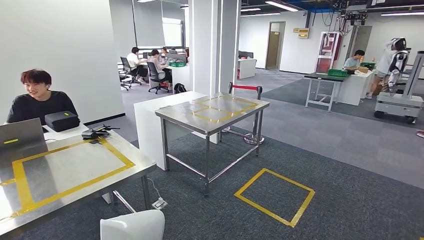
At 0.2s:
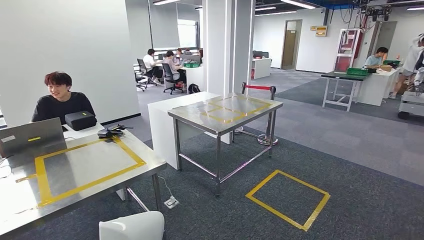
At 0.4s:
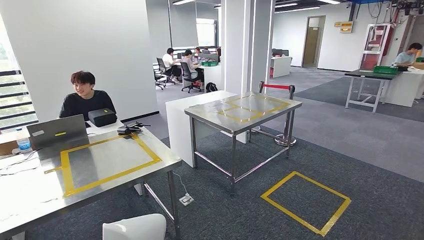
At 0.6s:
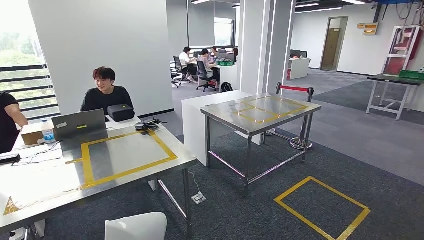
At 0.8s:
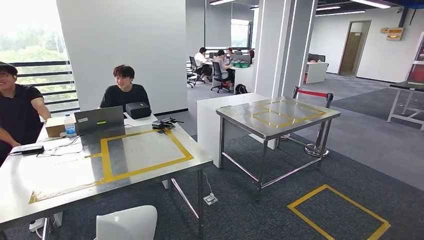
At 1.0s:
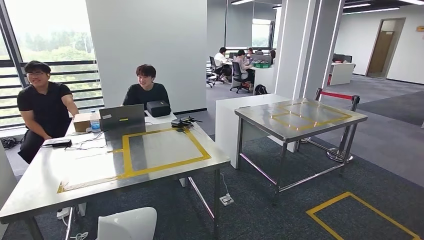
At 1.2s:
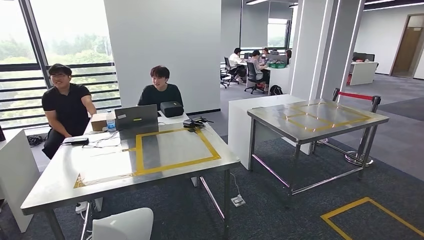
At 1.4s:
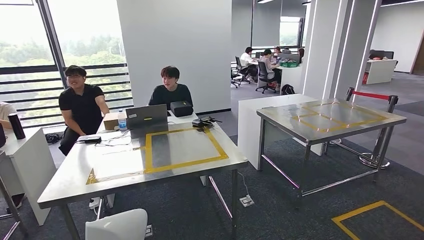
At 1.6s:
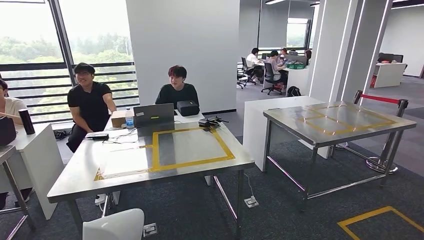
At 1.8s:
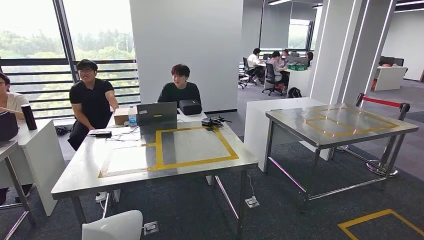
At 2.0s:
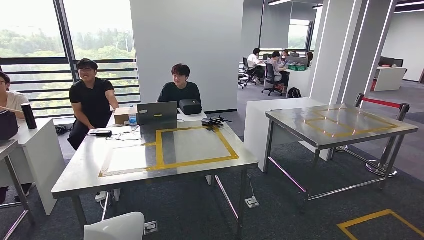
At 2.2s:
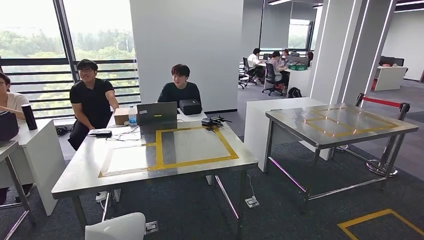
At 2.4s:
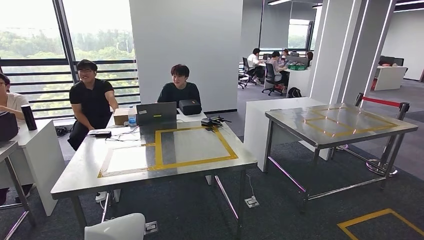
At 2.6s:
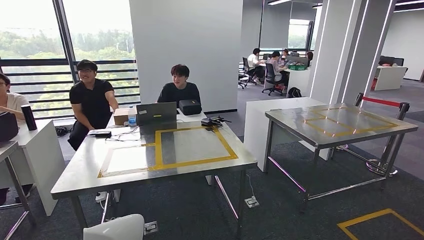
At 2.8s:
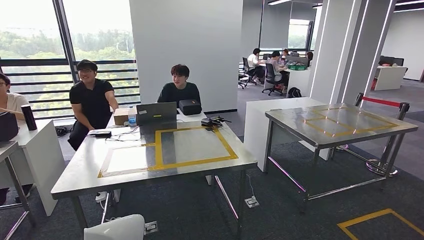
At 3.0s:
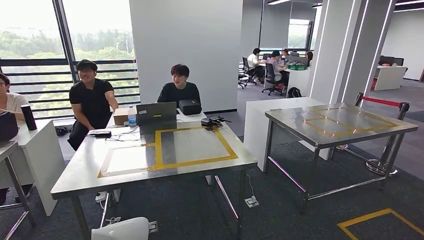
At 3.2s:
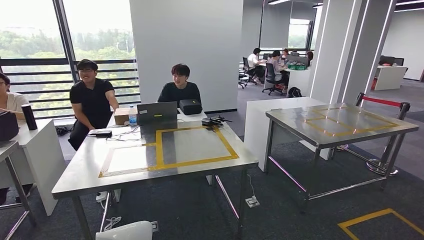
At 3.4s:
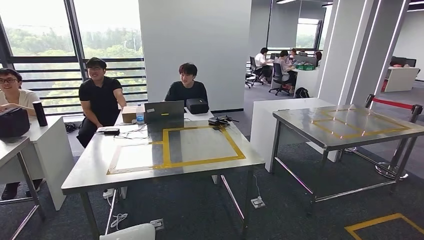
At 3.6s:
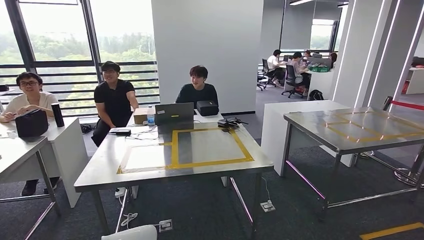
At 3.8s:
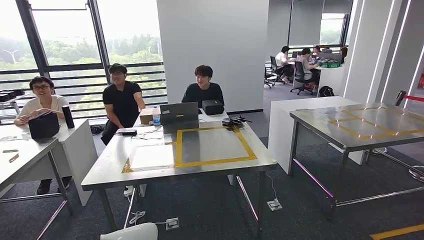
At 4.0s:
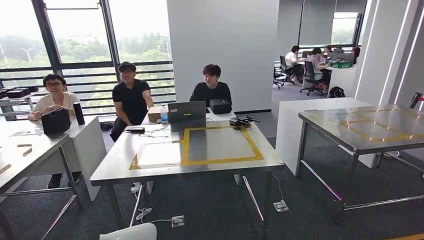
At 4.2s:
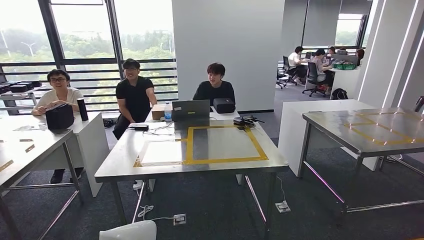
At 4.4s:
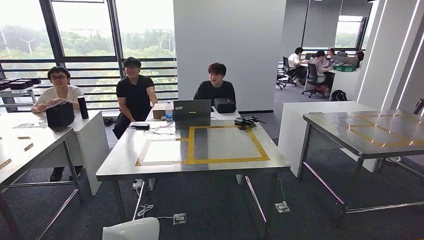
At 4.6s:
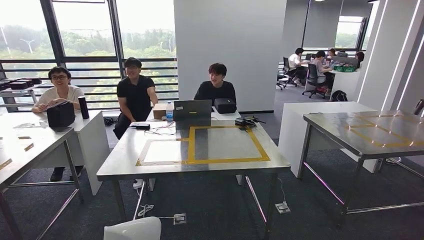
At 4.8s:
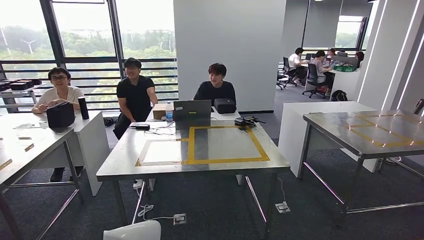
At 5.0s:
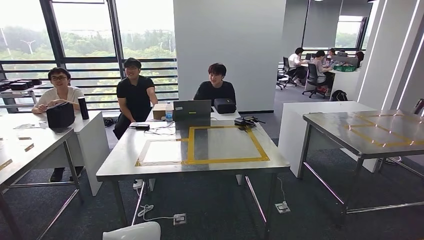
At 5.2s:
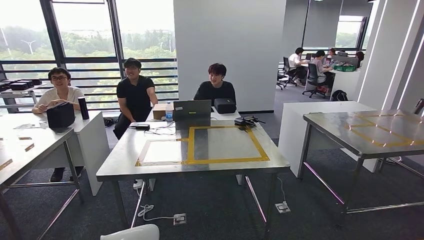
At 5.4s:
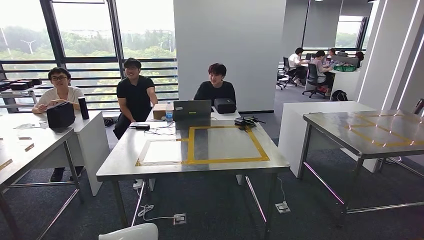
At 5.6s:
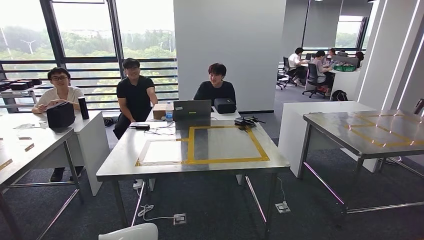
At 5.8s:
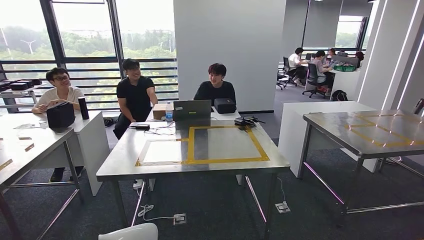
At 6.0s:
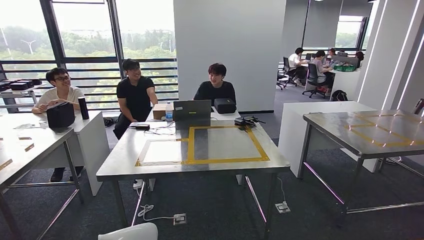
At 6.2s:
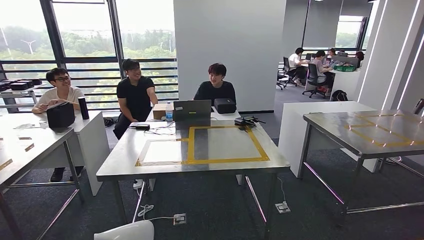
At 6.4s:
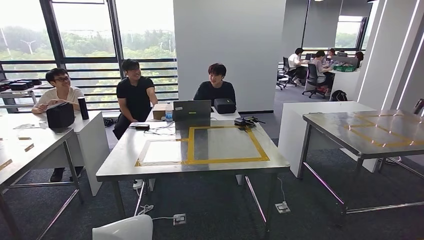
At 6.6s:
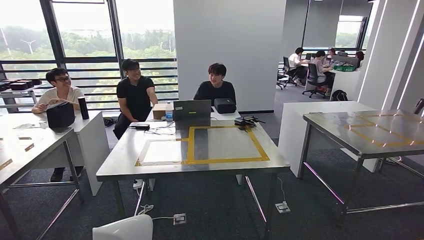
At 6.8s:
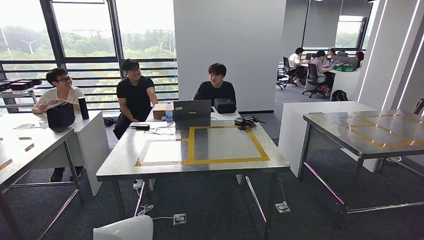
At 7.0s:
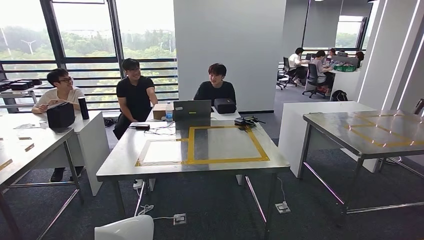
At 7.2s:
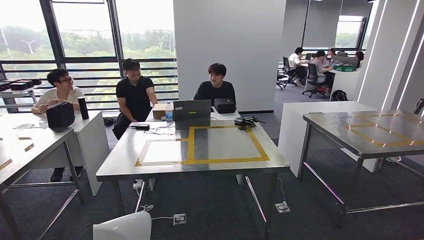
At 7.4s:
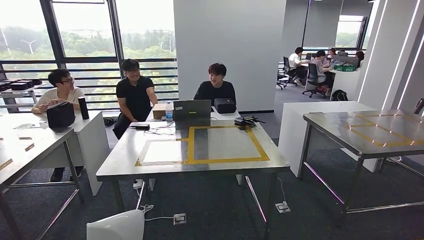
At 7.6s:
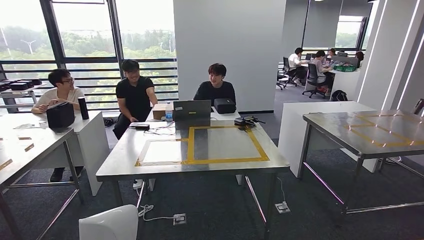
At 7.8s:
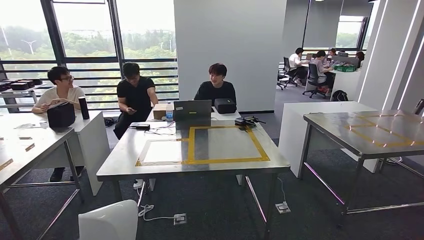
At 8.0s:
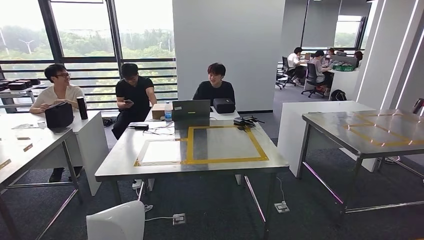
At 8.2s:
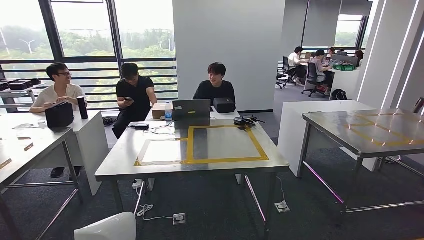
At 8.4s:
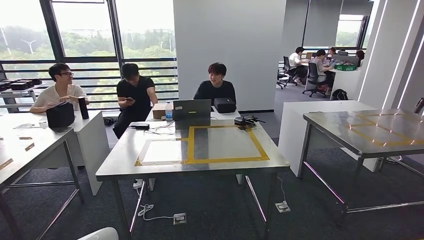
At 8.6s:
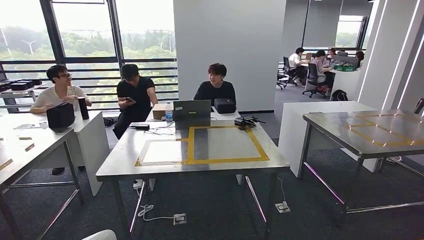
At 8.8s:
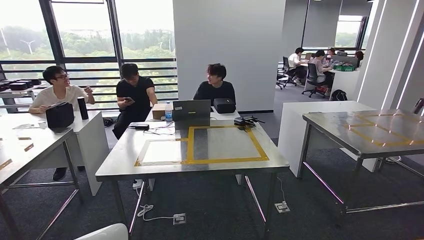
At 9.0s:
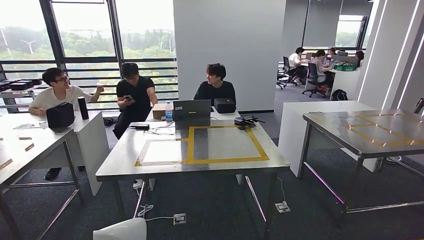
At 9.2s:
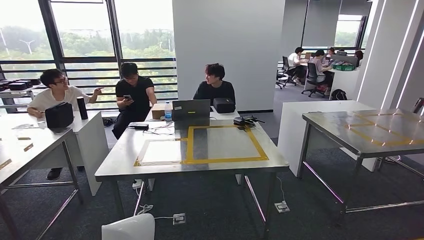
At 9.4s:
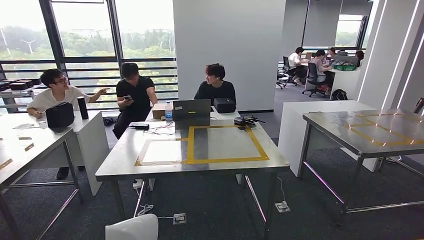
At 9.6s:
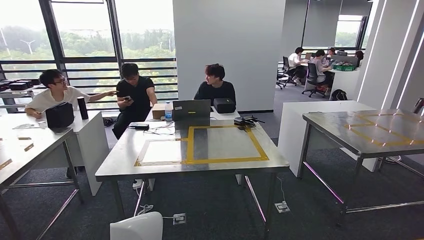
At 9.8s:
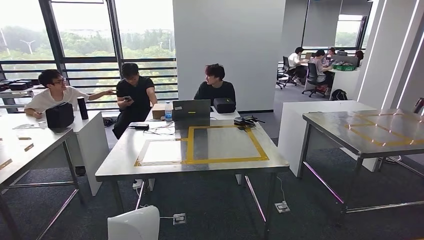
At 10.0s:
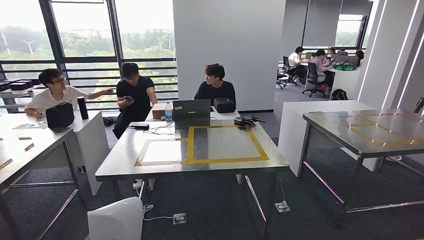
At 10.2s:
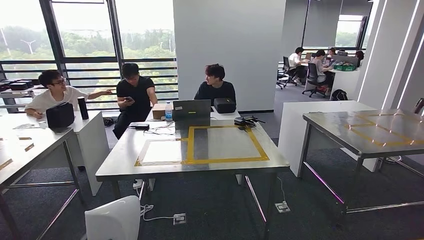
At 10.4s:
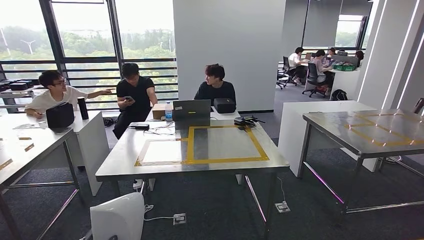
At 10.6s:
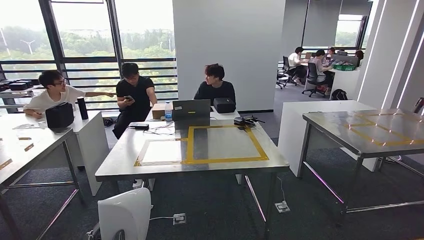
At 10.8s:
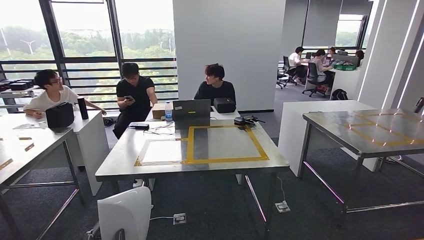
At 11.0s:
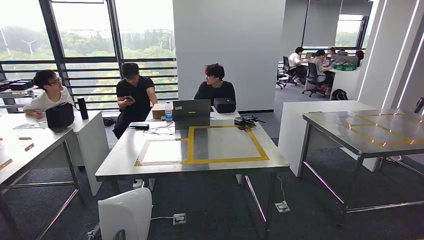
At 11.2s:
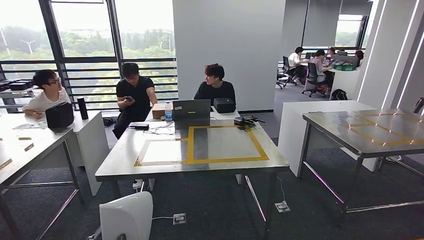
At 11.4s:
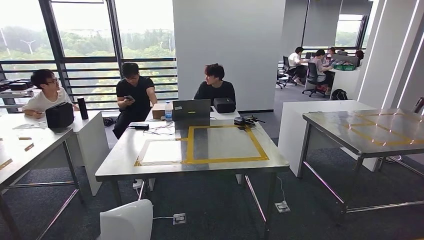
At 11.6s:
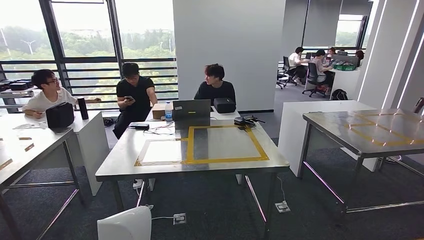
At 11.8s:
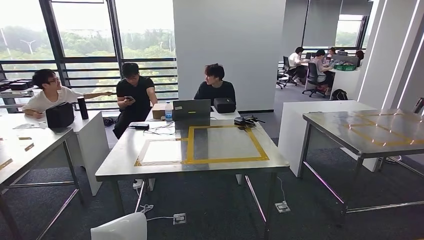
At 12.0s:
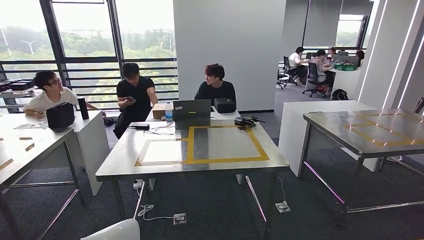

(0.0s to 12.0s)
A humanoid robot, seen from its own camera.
Step, 0.0s - 2.0s: Move the small component to the workbench.
4.4s - 7.6s: The hands move only a little.
9.0s - 10.4s: The left hand changes place by roughly 5 cm.
10.4s - 12.0s: The left hand heads backward, covering approximately 5 cm.

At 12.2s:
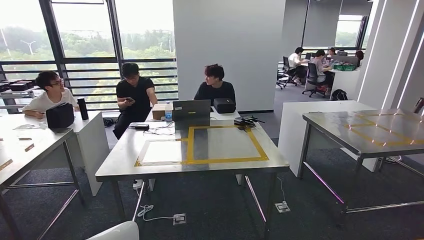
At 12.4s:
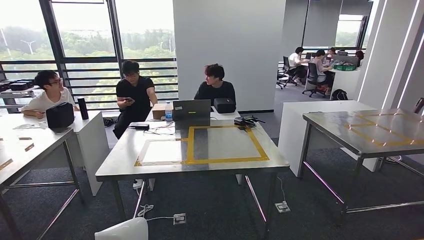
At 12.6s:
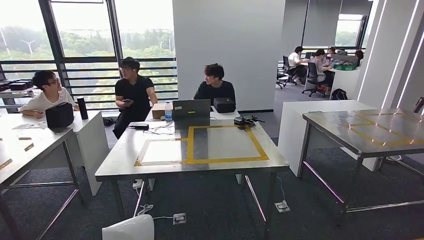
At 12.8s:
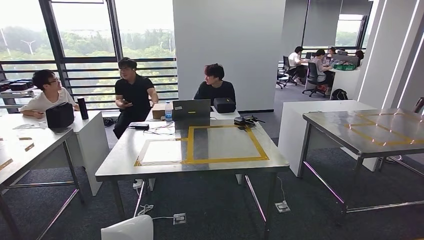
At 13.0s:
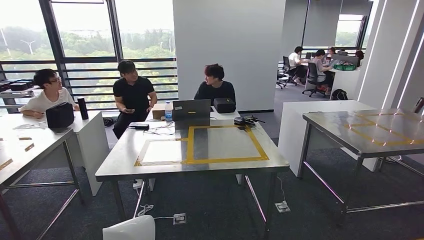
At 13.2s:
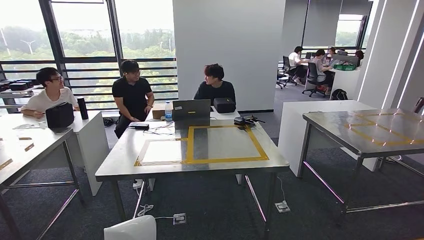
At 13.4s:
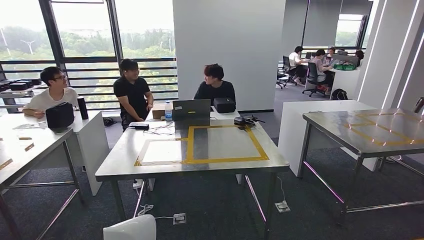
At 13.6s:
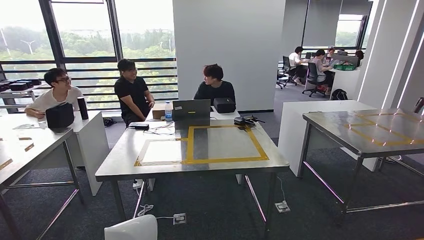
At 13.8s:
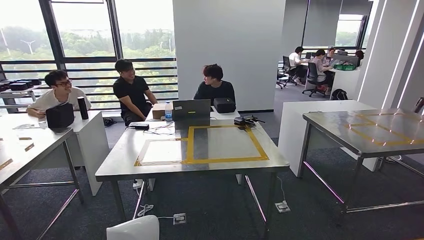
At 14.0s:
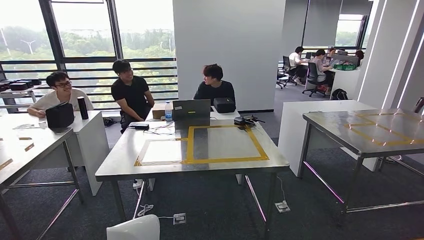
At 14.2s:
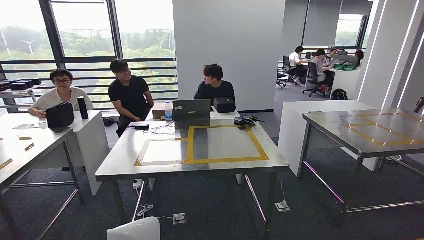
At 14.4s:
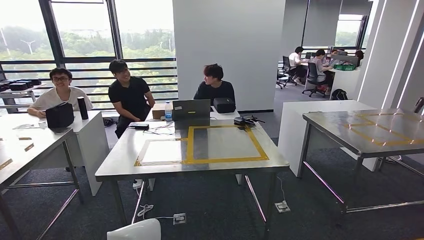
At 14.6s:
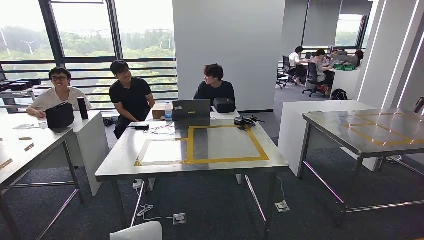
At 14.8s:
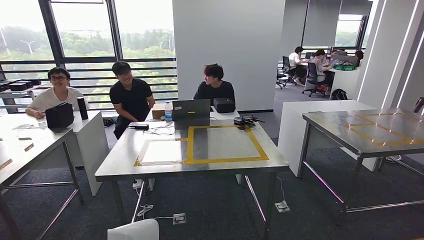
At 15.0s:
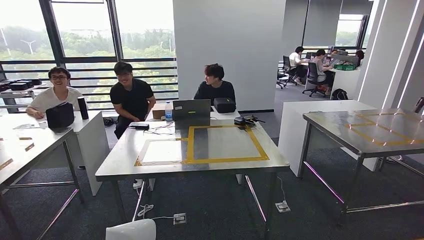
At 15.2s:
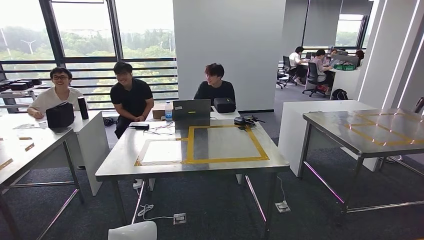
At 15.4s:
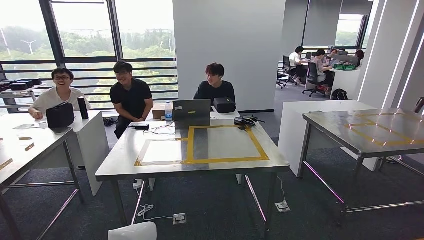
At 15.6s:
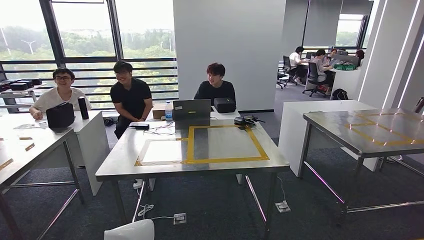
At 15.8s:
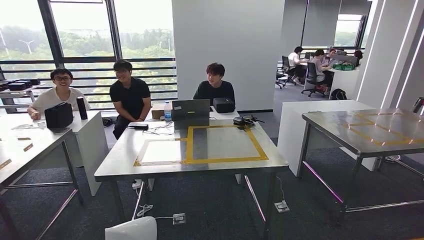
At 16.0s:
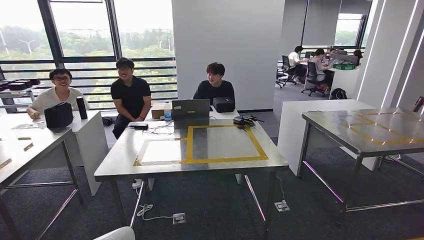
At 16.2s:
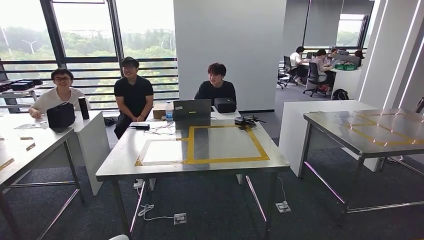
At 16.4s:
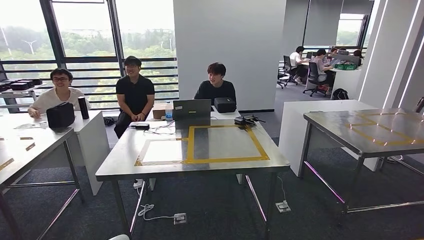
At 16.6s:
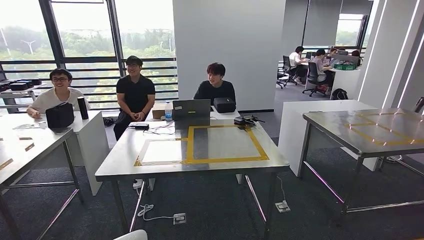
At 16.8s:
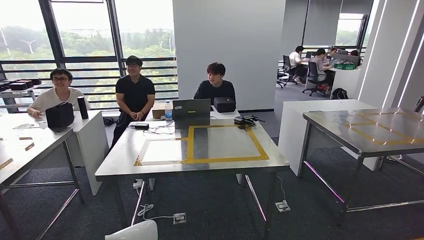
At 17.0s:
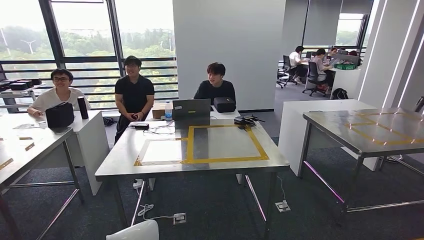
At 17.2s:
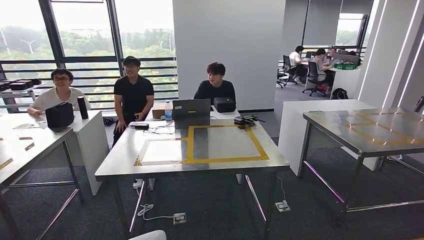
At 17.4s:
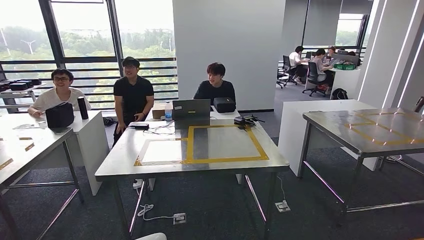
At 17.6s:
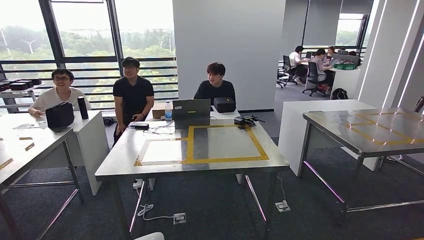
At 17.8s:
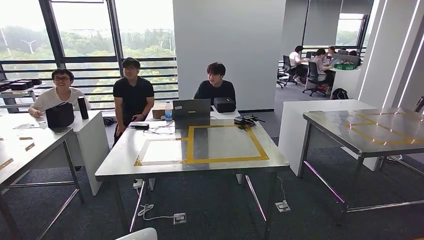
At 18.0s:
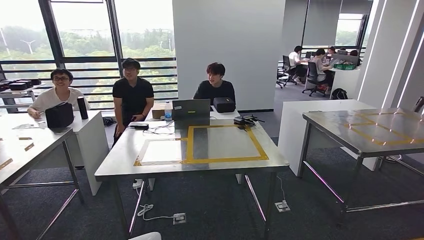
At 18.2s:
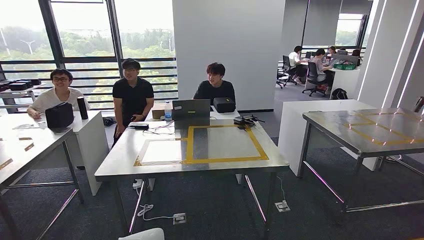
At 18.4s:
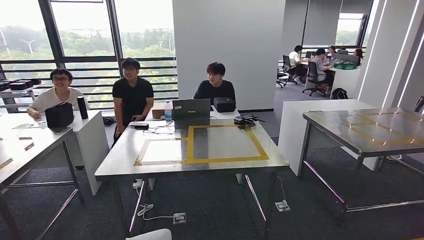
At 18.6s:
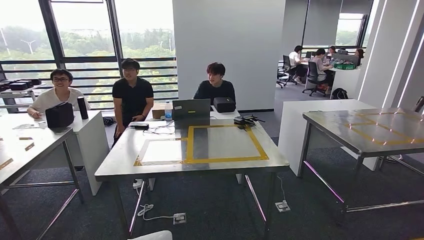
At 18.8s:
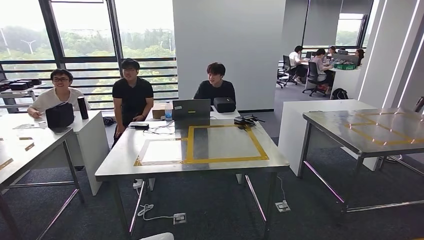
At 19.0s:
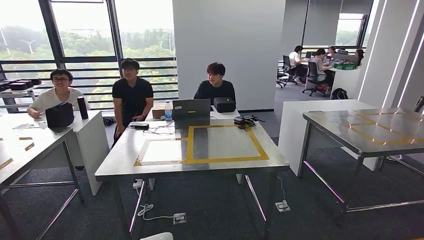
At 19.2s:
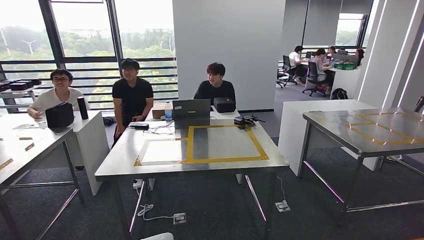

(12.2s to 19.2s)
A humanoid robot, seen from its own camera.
12.2s - 15.0s: The hands make only small movements.
15.0s - 16.4s: The left hand moves some 5 cm.
16.4s - 19.2s: The hands move only a little.
